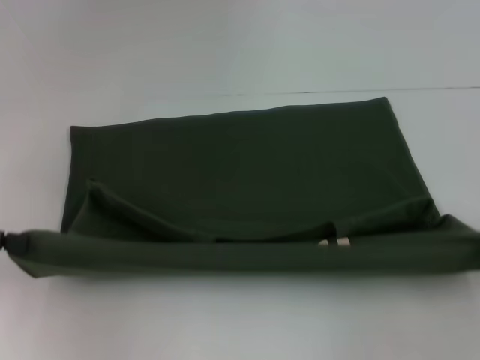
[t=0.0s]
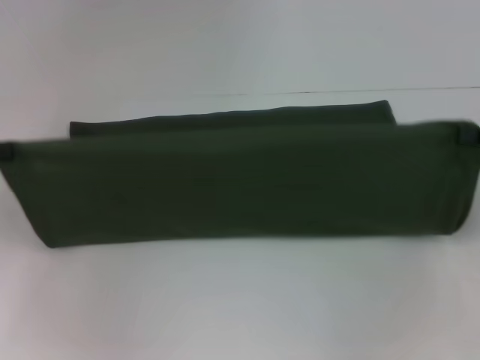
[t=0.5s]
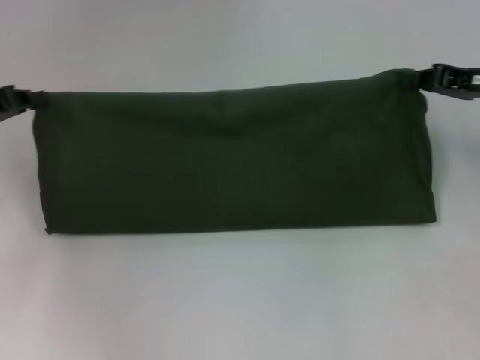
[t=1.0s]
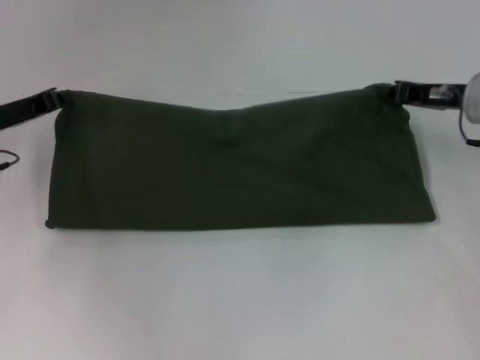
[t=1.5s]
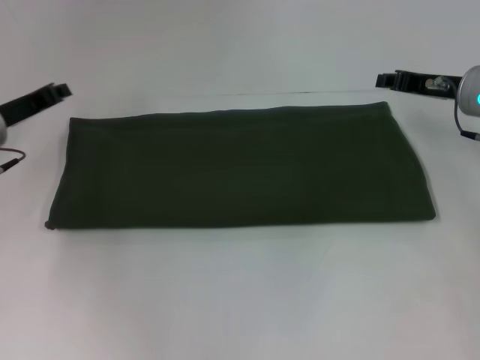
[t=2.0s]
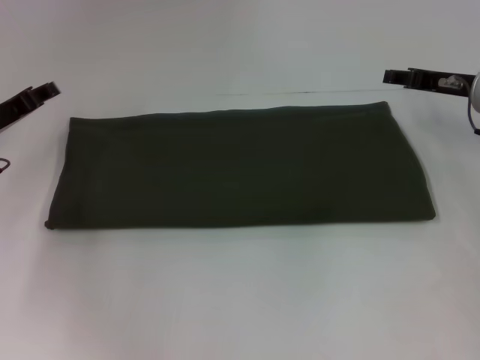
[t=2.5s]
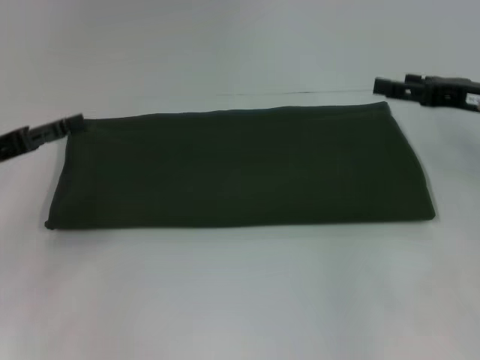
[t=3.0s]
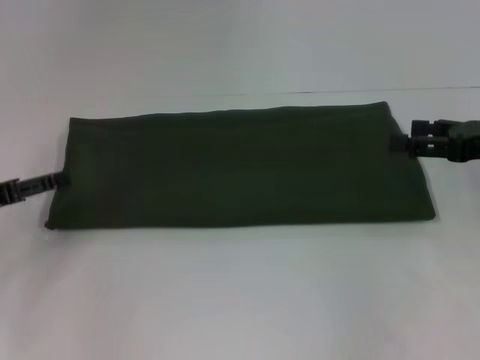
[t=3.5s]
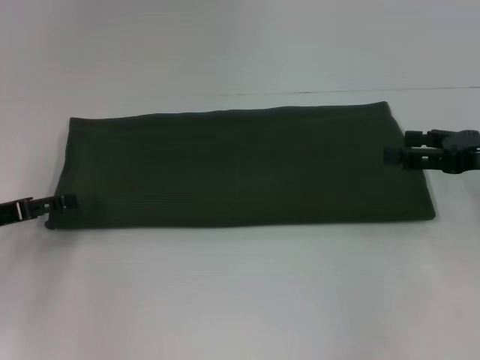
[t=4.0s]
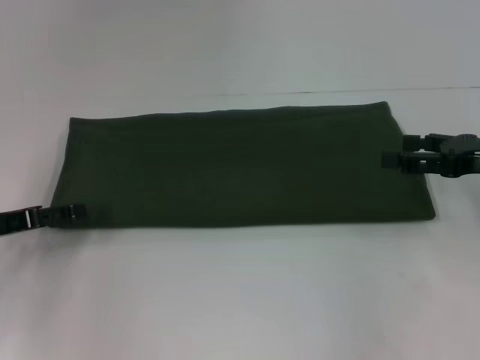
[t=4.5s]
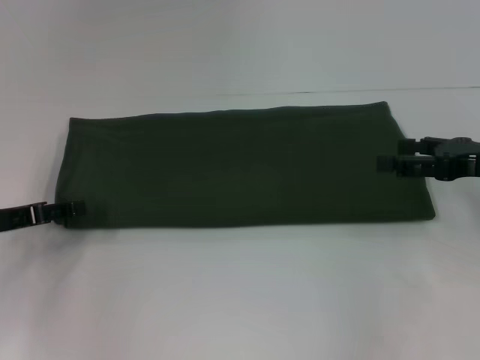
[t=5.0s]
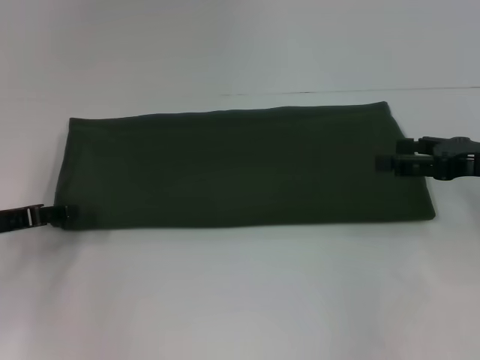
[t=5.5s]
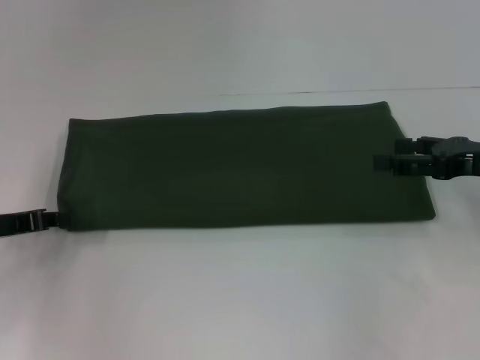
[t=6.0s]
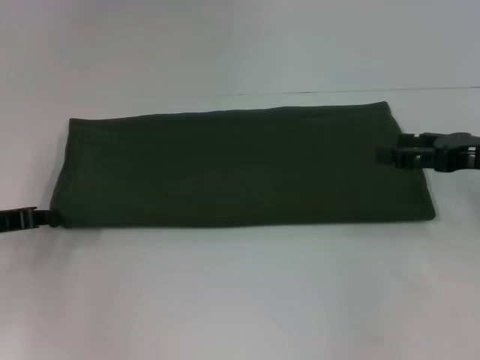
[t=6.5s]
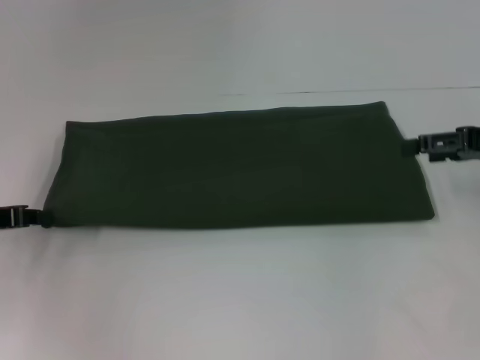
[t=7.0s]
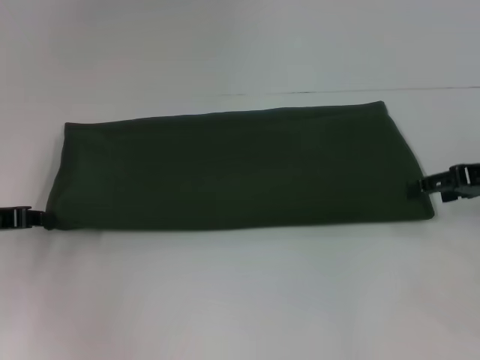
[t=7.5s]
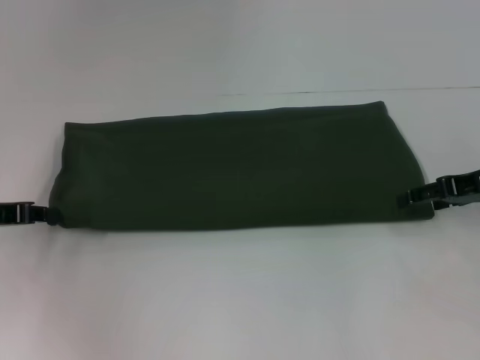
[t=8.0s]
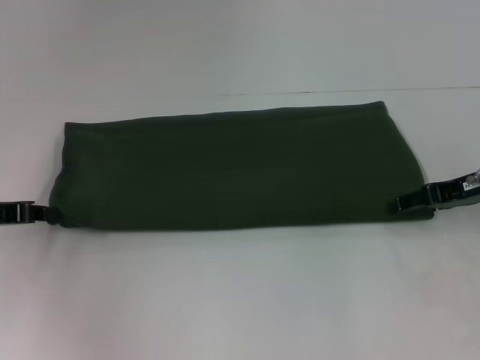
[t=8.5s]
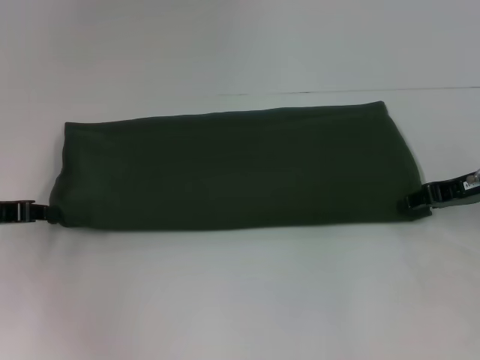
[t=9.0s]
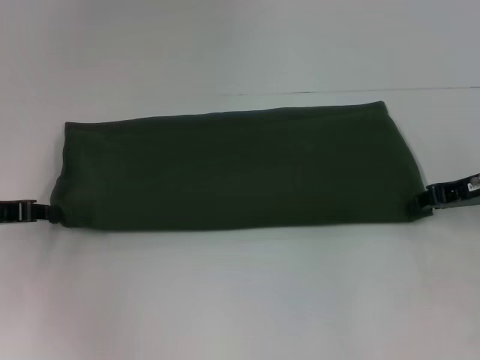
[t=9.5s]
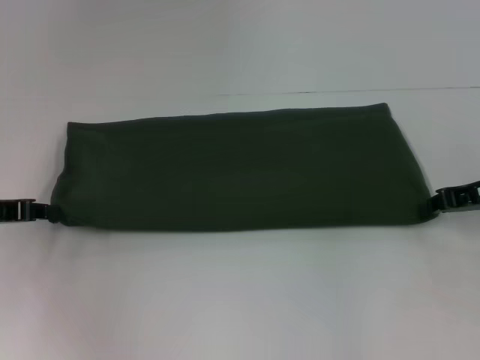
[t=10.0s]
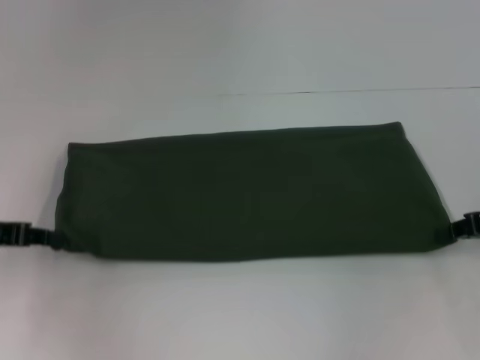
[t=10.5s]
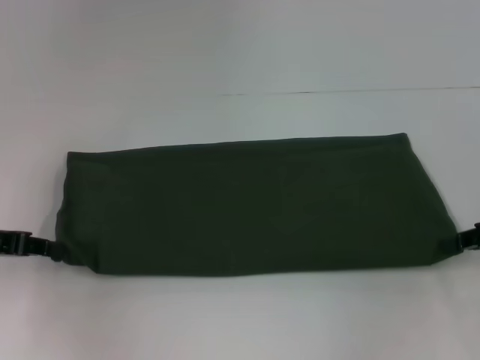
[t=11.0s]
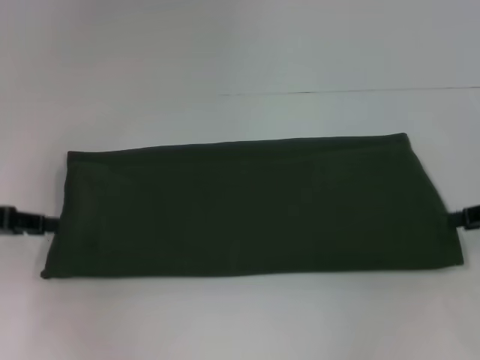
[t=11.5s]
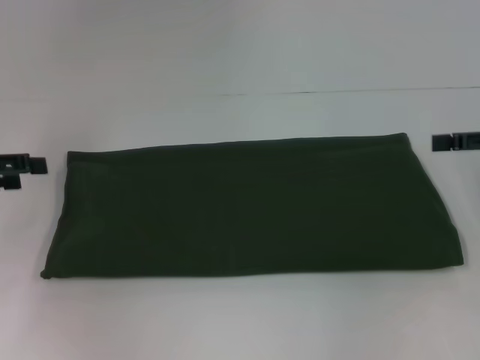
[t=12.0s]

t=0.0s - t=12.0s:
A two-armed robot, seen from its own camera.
Step, t=0.0s - t=1.5s: Fold the clothes with your right hand.
t=0.0s - t=2.0s: The left gripper heads forward, to the right and downward, covering about 15 cm; the right gripper goes approximately 20 cm forward and to the left.
t=2.0s - t=4.0s: The right gripper goes about 10 cm backward and to the right, and opens its fingers; the left gripper goes some 10 cm backward and to the left, and opens up.
t=4.0s - t=6.0s: The left gripper closes.
t=8.0s - t=10.0s: The right gripper closes up.
t=10.0s - t=12.0s: Both grippers travel together upward, approximately 5 cm. The left gripper opens its fingers, while the right gripper opens.

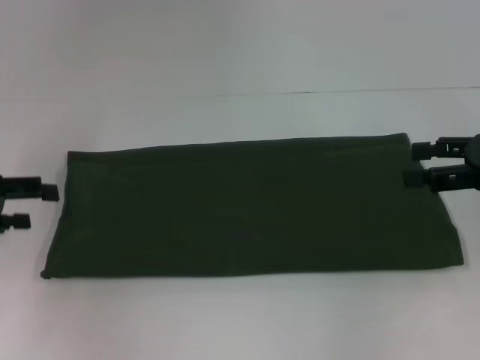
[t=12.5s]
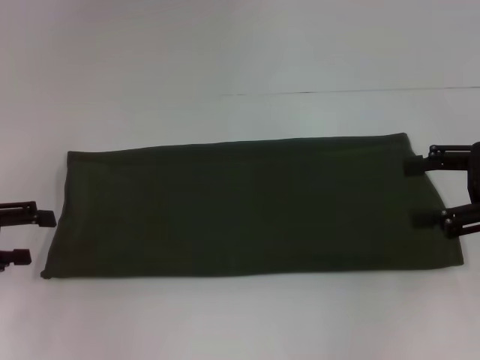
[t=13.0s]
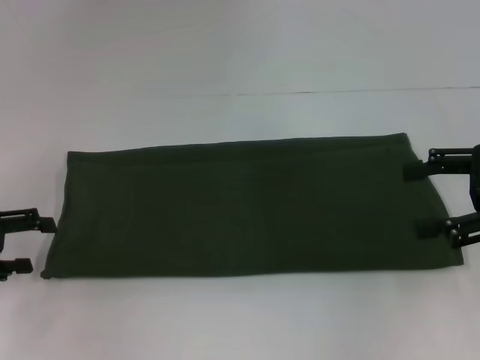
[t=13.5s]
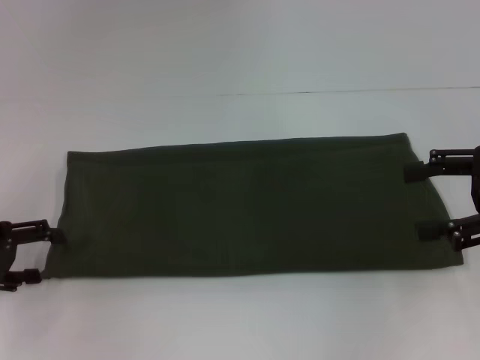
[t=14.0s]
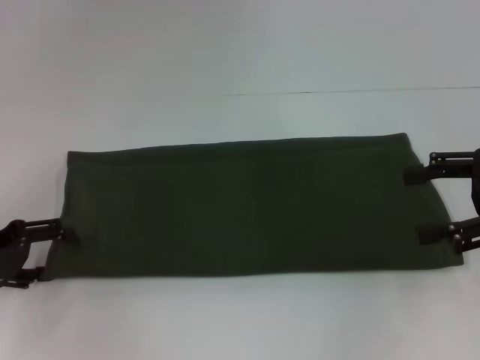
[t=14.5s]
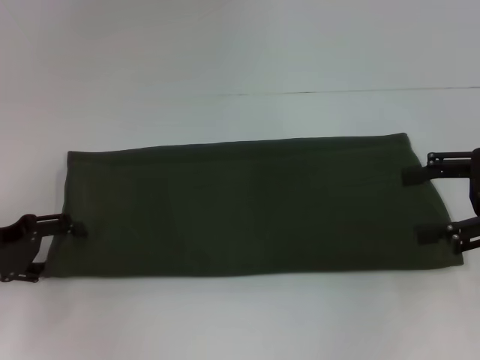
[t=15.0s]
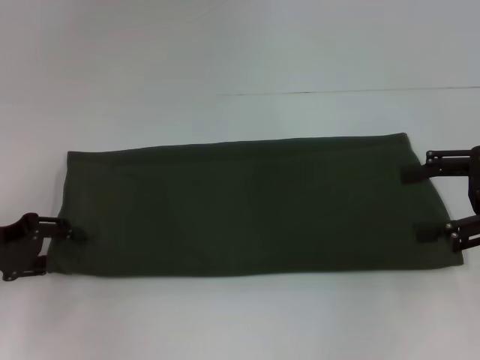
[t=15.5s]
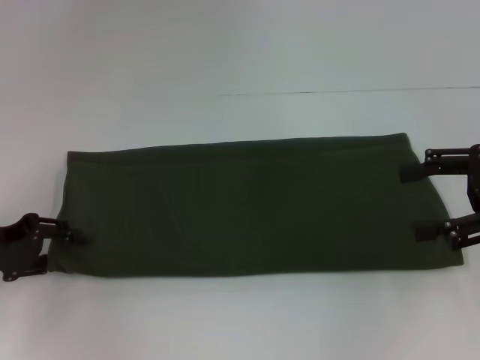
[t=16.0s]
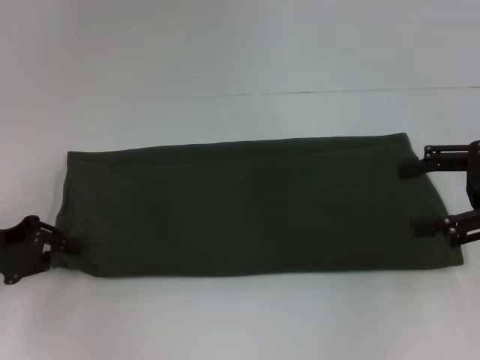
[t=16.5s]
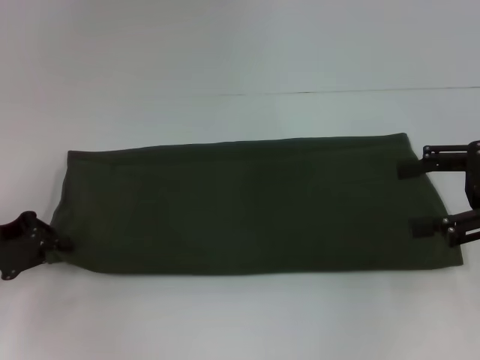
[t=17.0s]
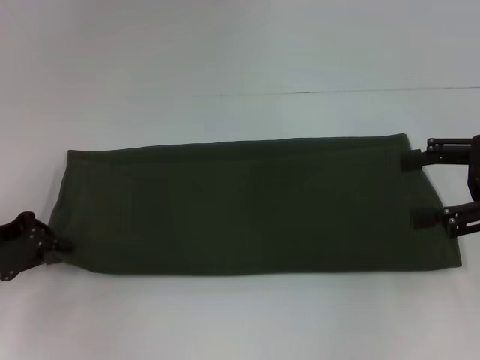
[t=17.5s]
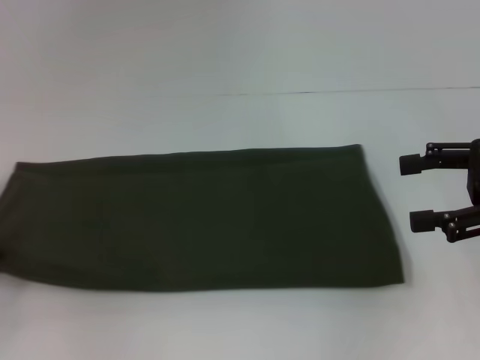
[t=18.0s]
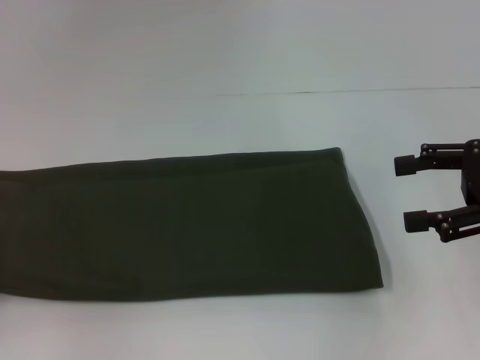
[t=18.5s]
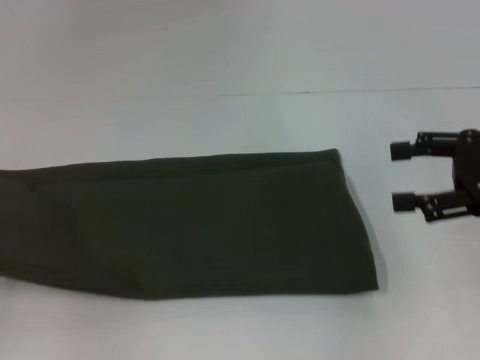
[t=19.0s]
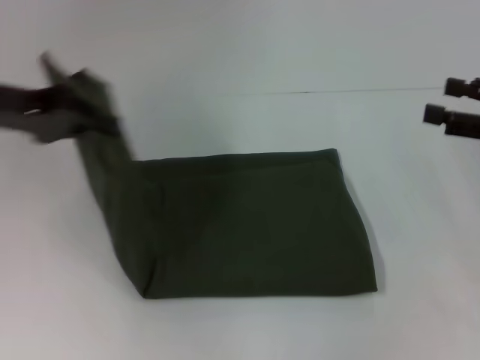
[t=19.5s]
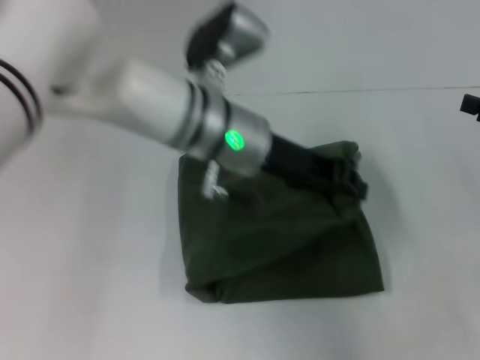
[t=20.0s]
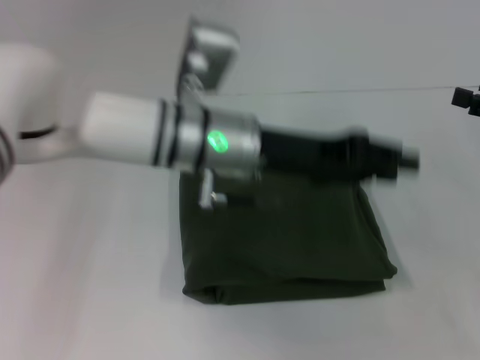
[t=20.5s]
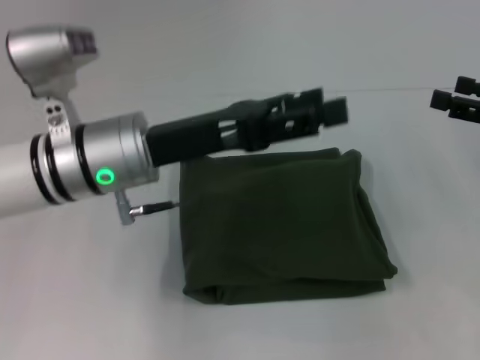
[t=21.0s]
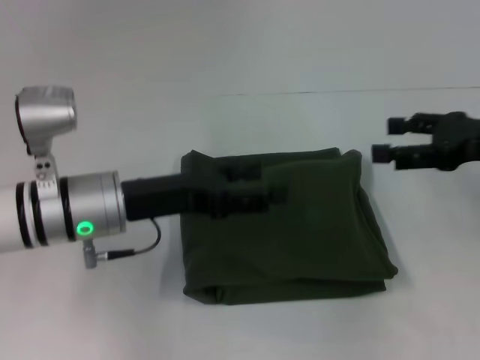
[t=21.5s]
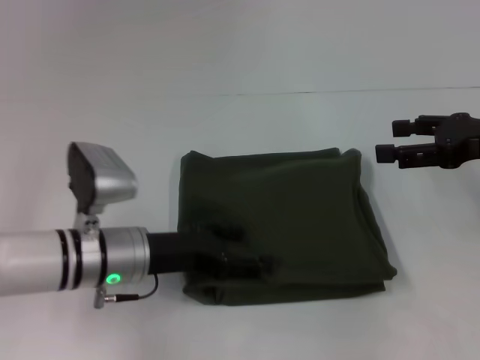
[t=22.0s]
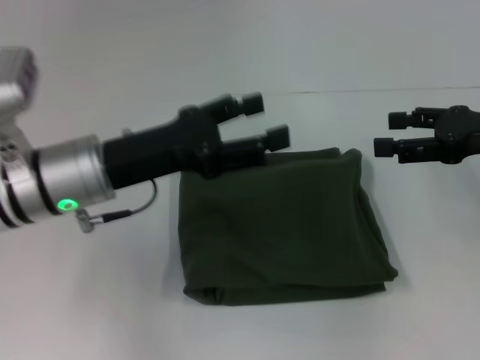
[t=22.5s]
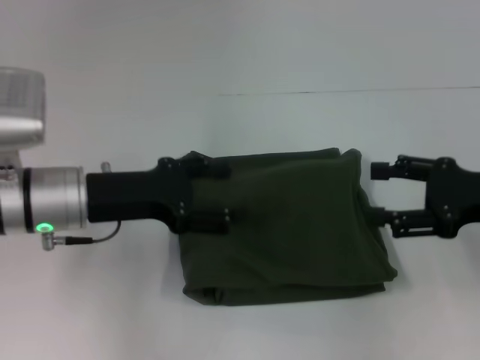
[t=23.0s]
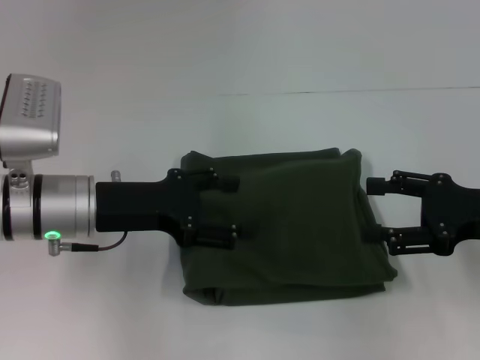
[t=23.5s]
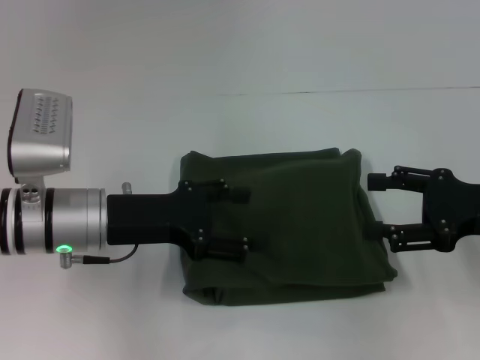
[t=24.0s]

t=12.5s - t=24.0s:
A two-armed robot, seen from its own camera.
Step, t=12.5s - t=20.0s: Fold the clothes with your left hand.
t=12.5s - t=14.5s: The left gripper shifts some 5 cm downward.
t=14.5s - t=16.5s: The left gripper closes its fingers.
t=16.5s - t=18.5s: The left gripper shifts roughly 10 cm to the left, and closes.
t=18.5s - t=20.0s: The right gripper moves to the right, roughly 5 cm, while the left gripper moves to the right, some 40 cm.
t=20.0s - t=22.0s: The right gripper travels to the left by roughly 5 cm. Meanwhile the left gripper goes about 20 cm to the left, downward and backward, and opens up.
t=22.0s - t=24.0s: The left gripper heads upward, covering approximately 5 cm. The right gripper heads backward, covering roughly 5 cm.

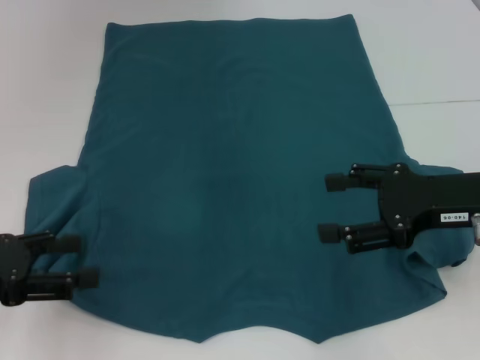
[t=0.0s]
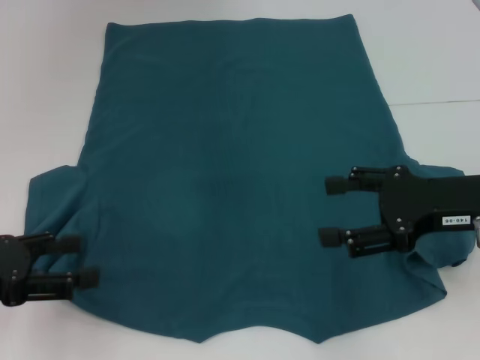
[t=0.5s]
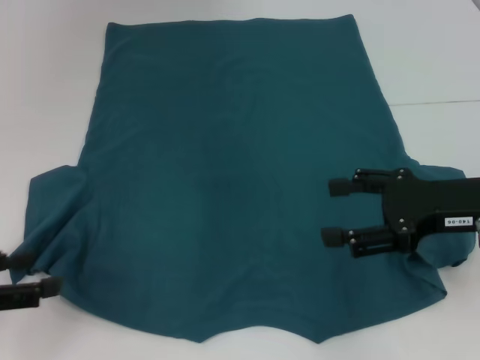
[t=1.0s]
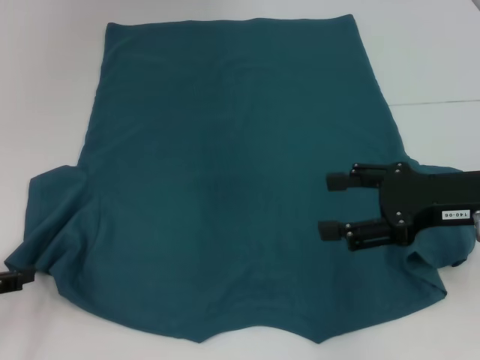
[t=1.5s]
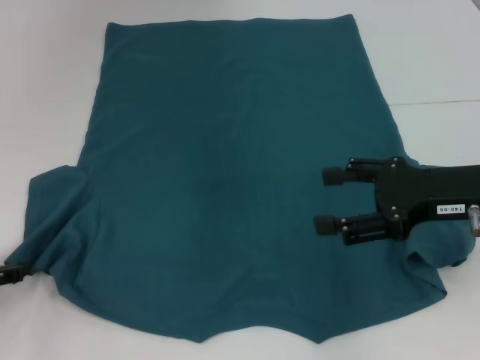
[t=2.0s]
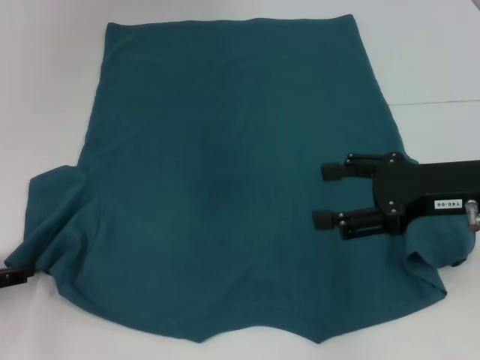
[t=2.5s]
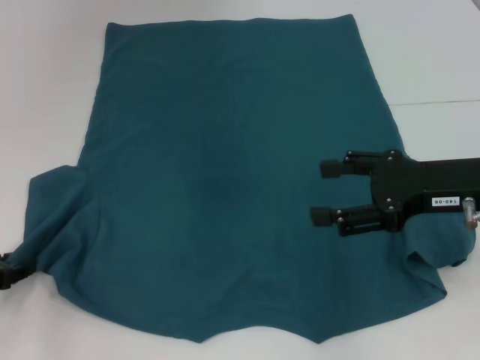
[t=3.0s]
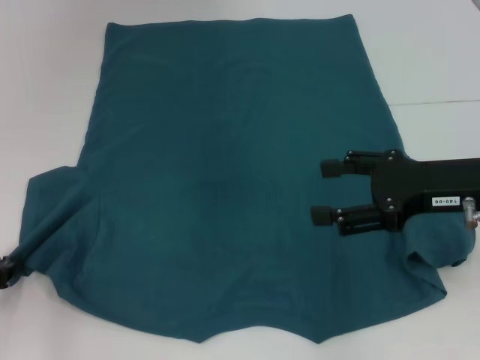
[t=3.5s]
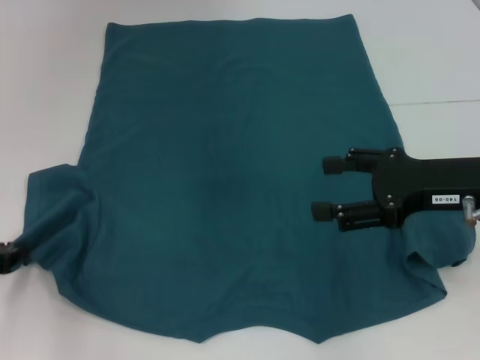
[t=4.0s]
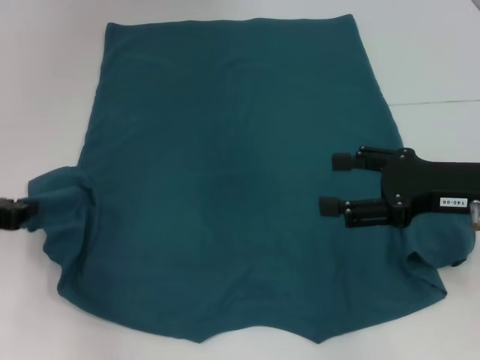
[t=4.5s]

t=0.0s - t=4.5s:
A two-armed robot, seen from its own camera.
t=0.0s - t=2.0s: The left gripper heads downward, covering some 5 cm.
t=2.0s - t=4.5s: The left gripper shifts by some 5 cm, and closes its fingers.
